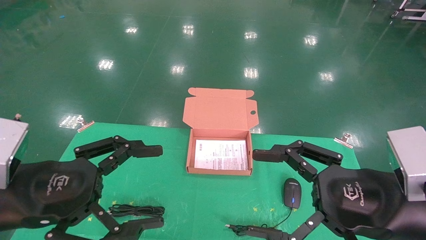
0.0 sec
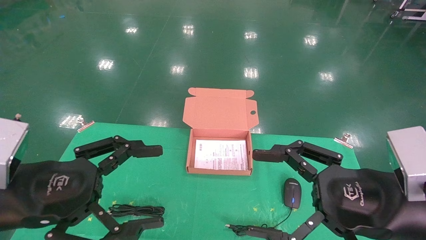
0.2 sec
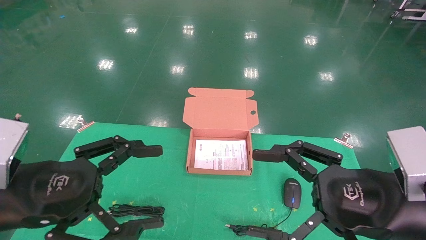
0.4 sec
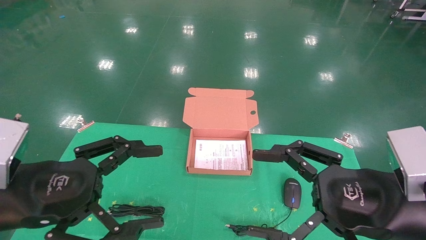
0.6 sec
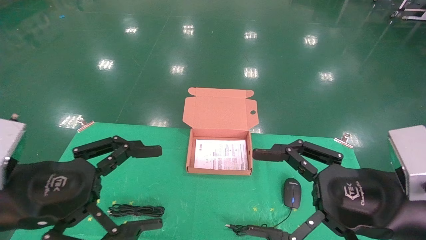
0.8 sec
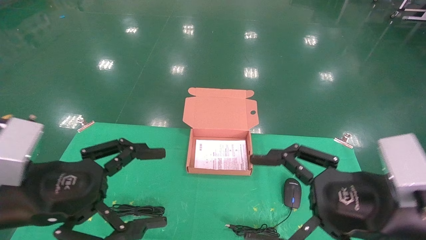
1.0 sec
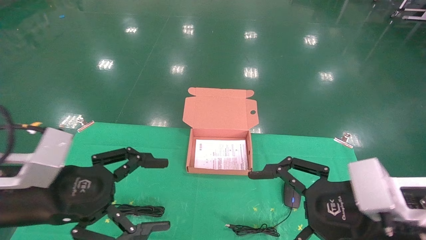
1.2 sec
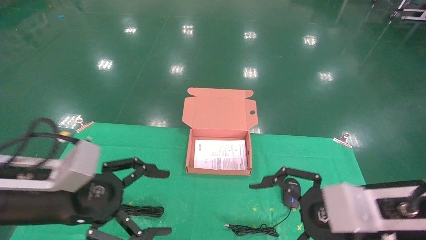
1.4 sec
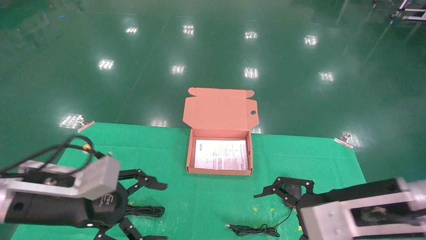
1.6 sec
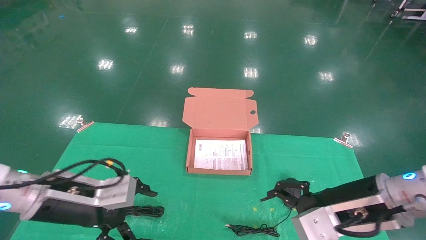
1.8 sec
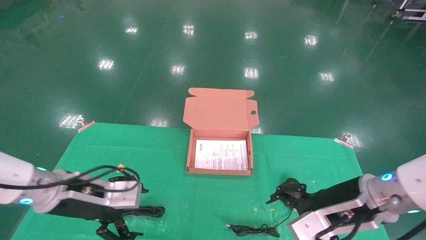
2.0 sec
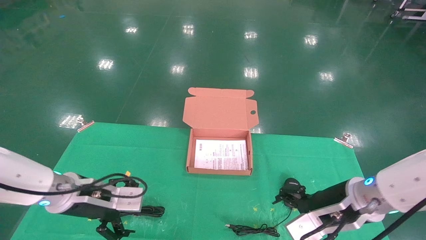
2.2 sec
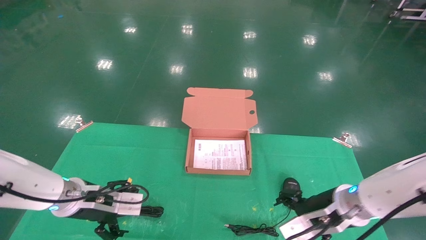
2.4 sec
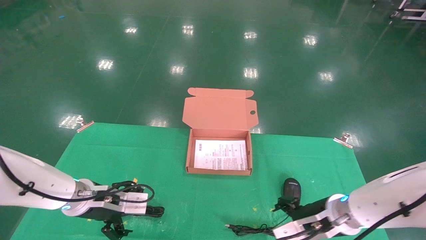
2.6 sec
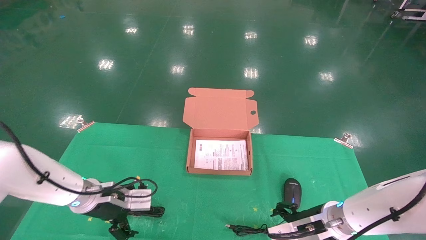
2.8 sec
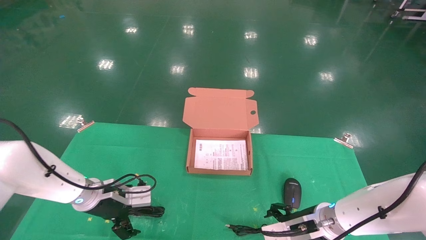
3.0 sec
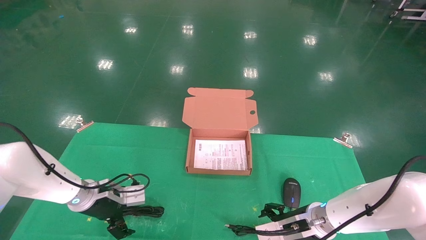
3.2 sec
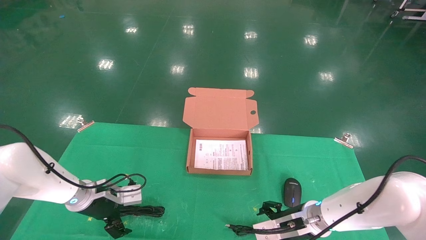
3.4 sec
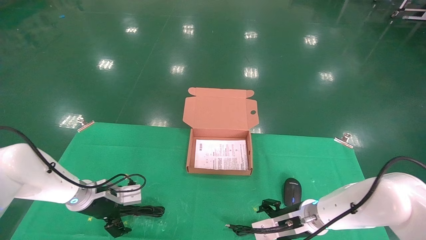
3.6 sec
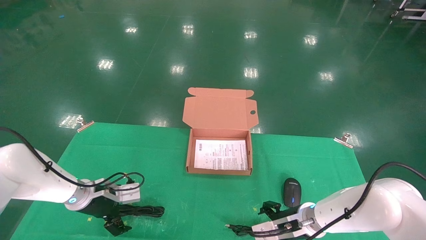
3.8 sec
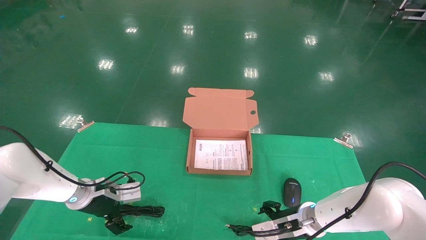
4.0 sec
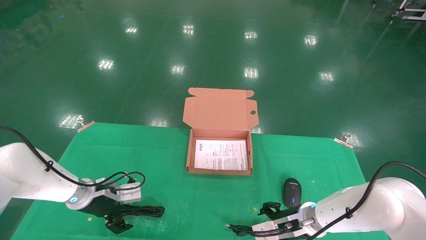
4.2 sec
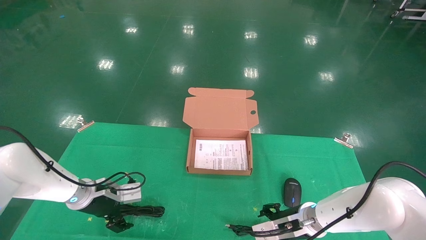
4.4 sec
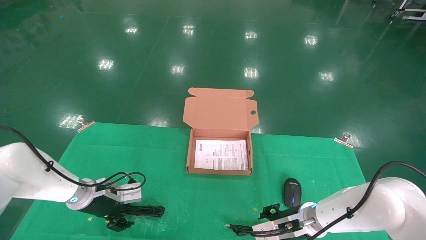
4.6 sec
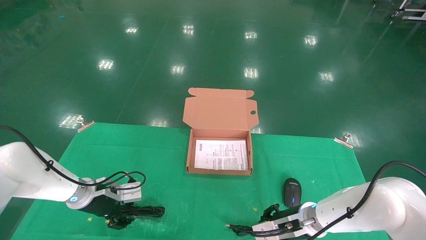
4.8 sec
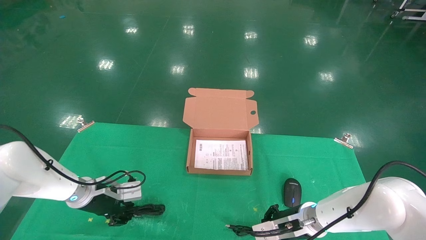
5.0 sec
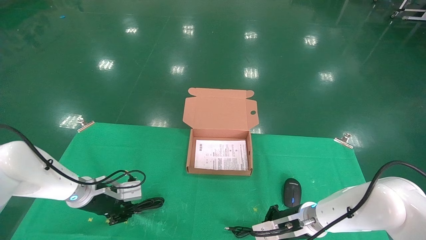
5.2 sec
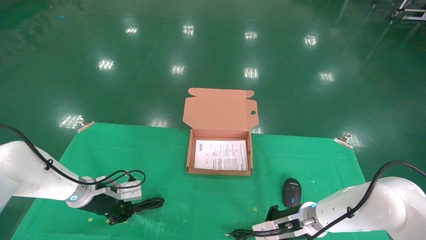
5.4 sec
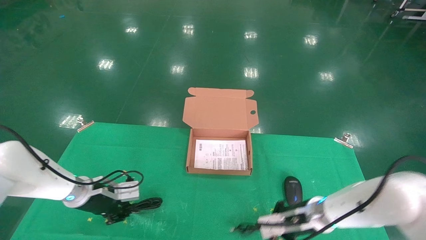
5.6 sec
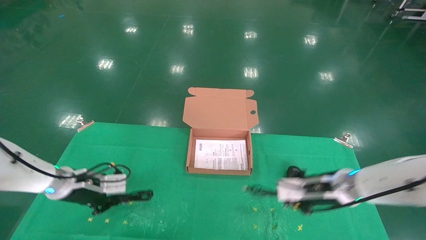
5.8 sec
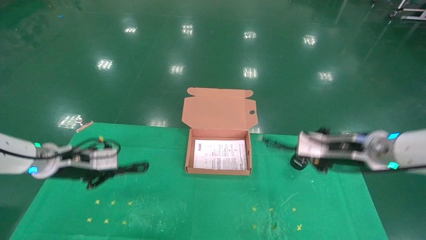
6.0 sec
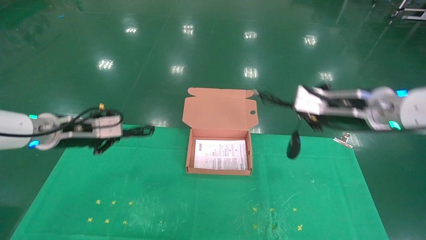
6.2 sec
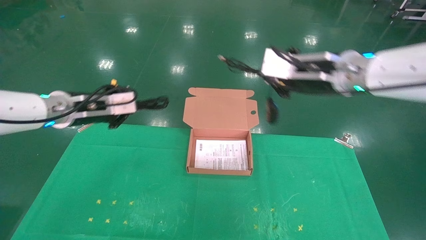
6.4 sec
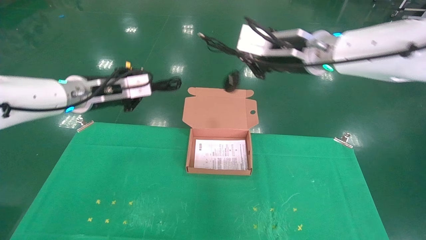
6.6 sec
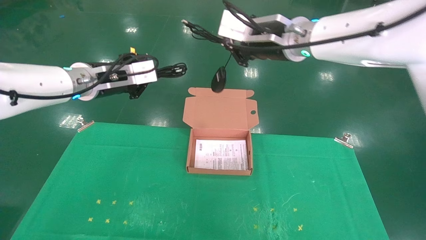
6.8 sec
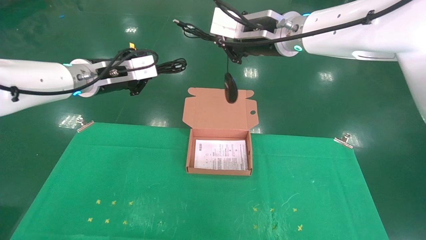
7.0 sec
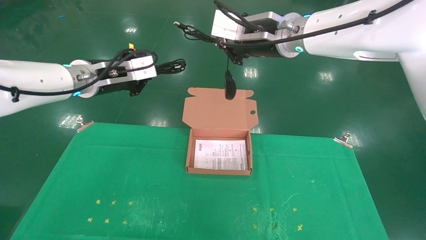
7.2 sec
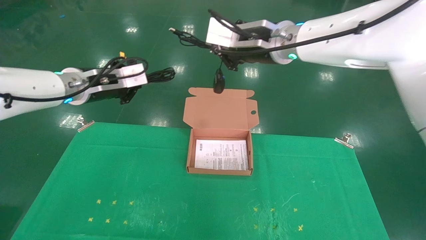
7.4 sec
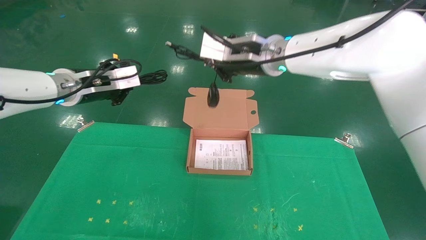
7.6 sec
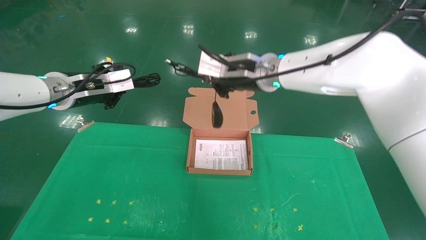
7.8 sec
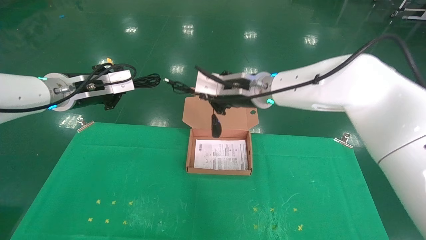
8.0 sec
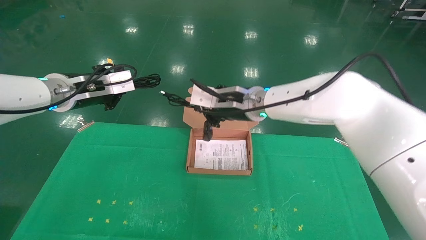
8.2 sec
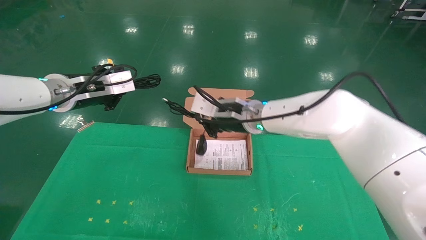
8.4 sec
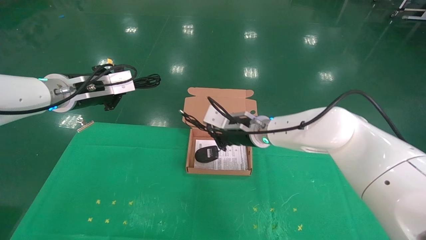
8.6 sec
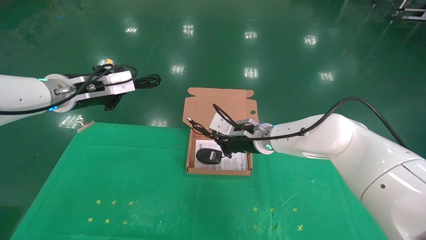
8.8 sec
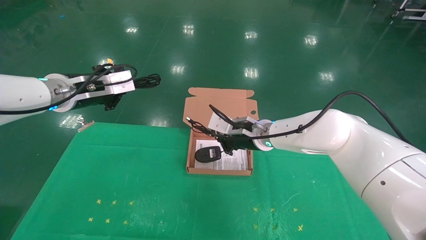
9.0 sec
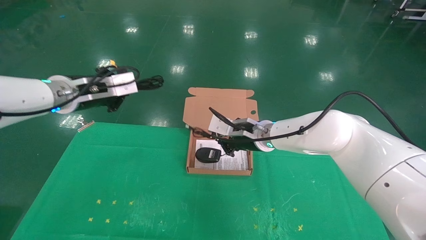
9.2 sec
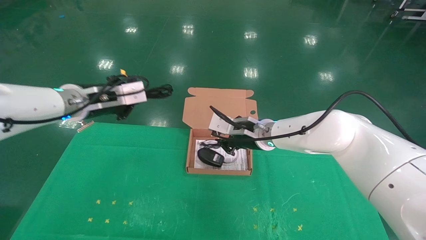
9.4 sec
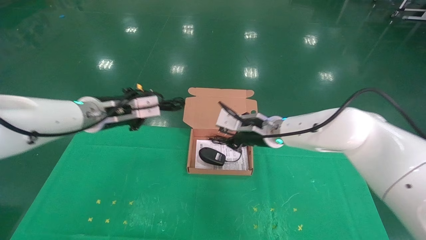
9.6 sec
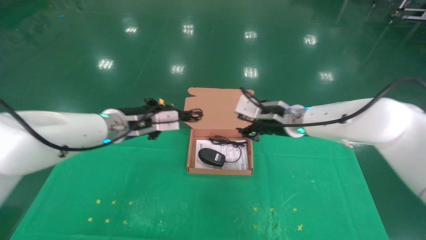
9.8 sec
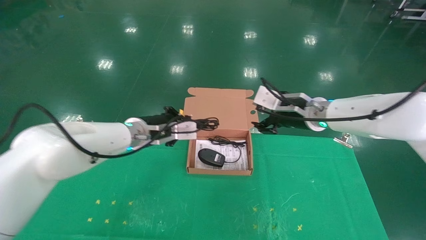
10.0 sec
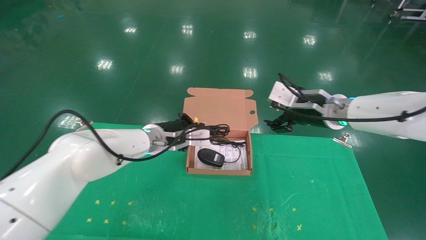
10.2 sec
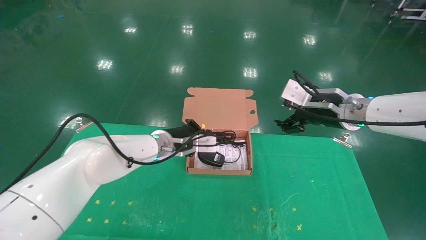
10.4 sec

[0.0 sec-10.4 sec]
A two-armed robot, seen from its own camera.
Task of the whole recording: grasp data cable left put into box grasp mouse right put into box.
Step, 0.8 sec to 5.4 sec: Grab and pick up both the mouse and power cord from the accessory packaging area at the same time.
0.0 sec to 1.4 sec: The left gripper shifts by roughly 5 cm.
1.4 sec to 3.0 sec: The left gripper goes some 20 cm forward and downward, while the right gripper shifts approximately 20 cm downward and forward.
3.0 sec to 4.4 sec: The grippers make only small movements.
4.4 sec to 6.0 sec: The right gripper is displaced upward by roughly 20 cm, and closes up, while the left gripper heads upward, covering some 10 cm, and closes its fingers.
6.0 sec to 7.4 sec: The left gripper is displaced upward and to the right by approximately 15 cm; the right gripper is displaced upward and to the left by about 25 cm.
7.4 sec to 9.0 sec: The right gripper travels downward by some 20 cm.
9.0 sec to 10.4 sec: The left gripper shifts about 25 cm to the right, downward and forward. The right gripper shifts some 15 cm to the right and upward, and opens.

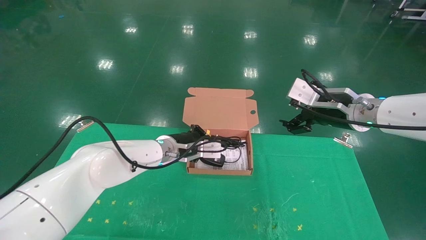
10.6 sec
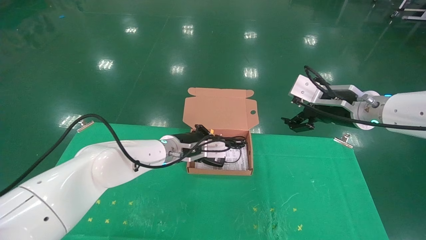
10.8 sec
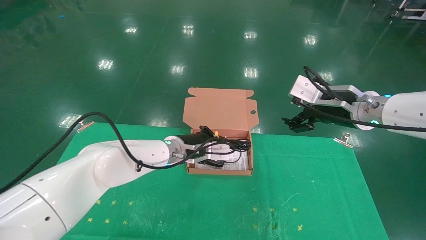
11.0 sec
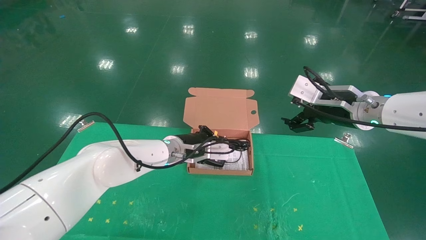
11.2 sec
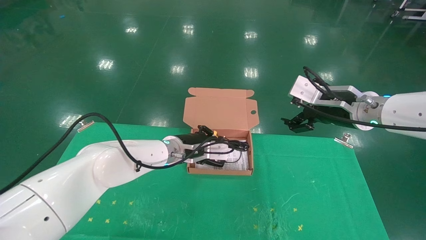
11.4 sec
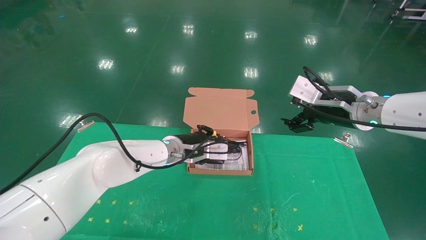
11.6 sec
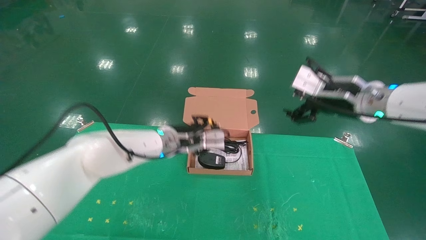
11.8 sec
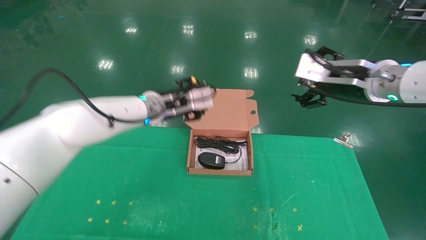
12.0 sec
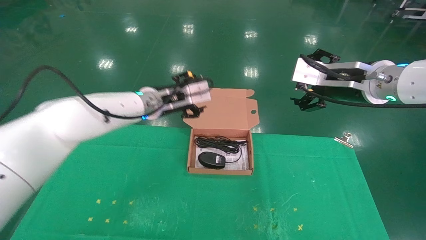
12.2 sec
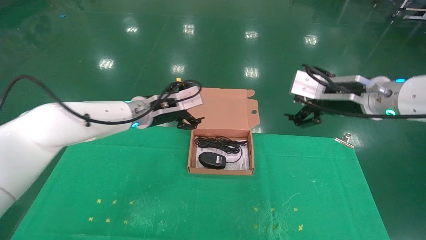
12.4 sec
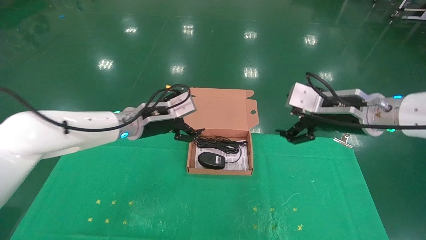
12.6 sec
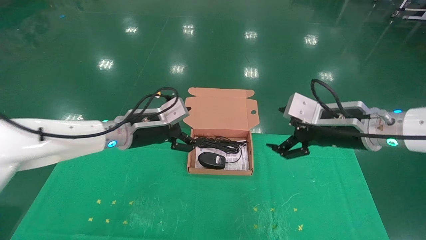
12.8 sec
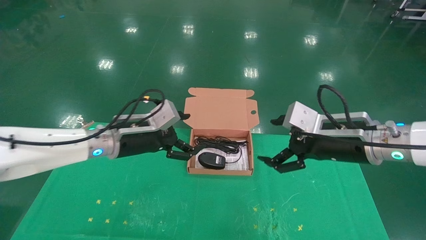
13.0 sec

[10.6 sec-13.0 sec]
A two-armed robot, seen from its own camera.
Task of the whole recording: grasp data cable left put into box grasp mouse right put into box.
10.6 sec to 11.8 sec: There are only small adjustments of the grippers.
11.8 sec to 13.0 sec: The left gripper heads to the left and backward, covering some 10 cm, and opens, while the right gripper is displaced downward and backward by some 10 cm.

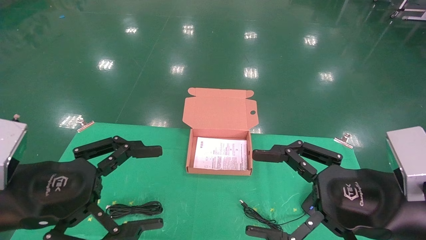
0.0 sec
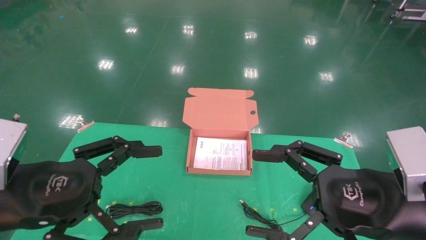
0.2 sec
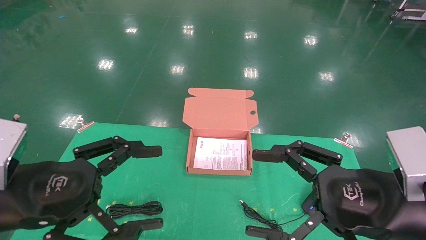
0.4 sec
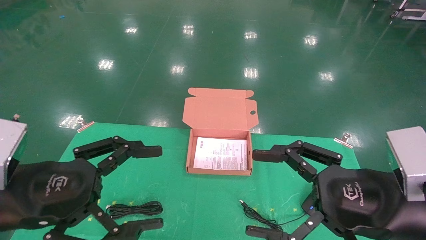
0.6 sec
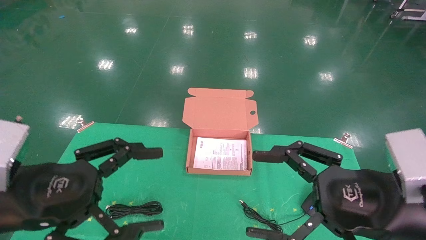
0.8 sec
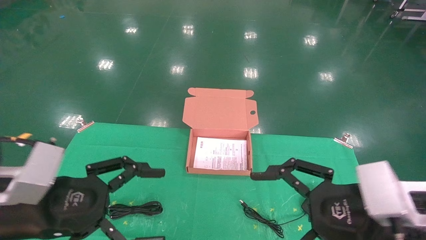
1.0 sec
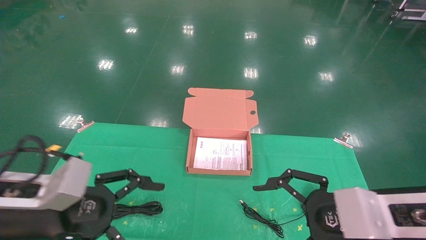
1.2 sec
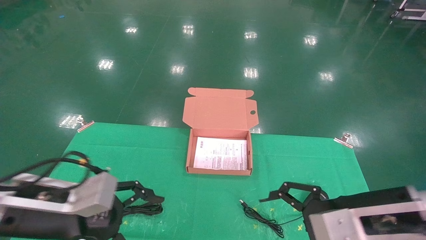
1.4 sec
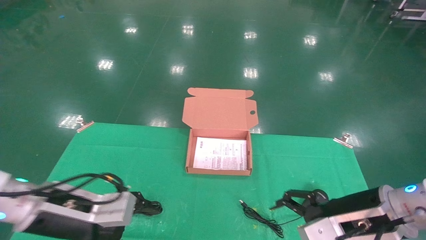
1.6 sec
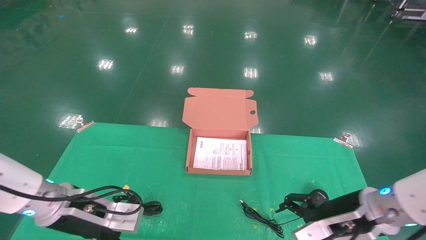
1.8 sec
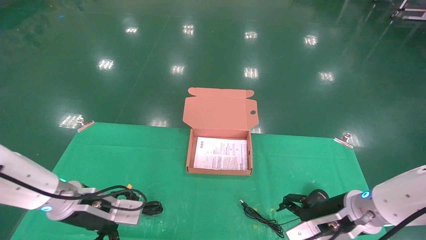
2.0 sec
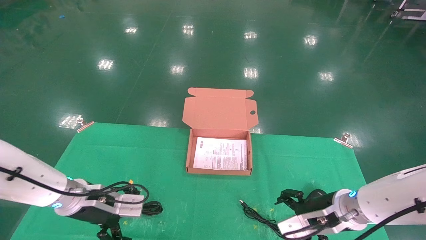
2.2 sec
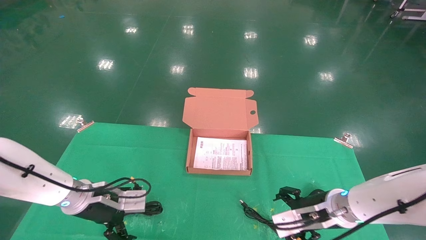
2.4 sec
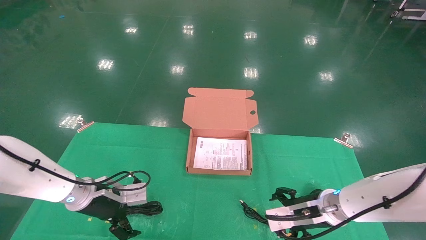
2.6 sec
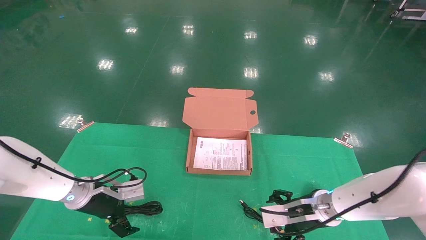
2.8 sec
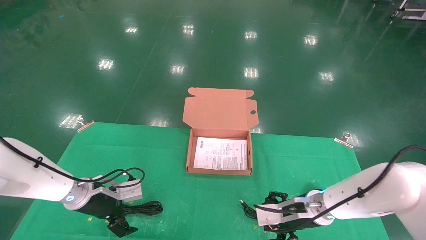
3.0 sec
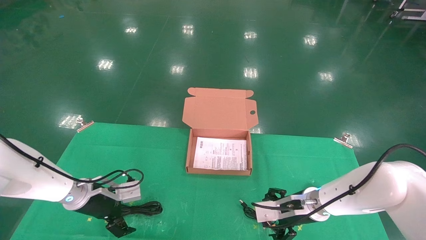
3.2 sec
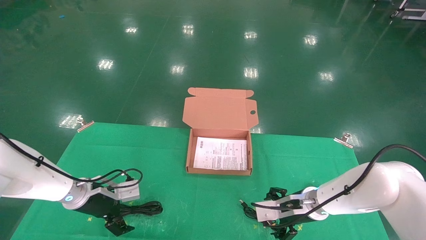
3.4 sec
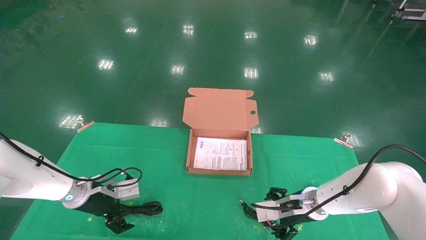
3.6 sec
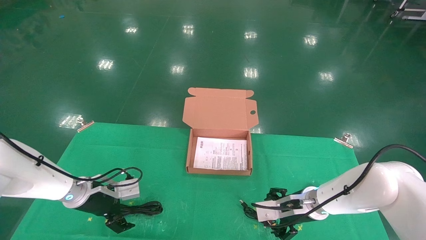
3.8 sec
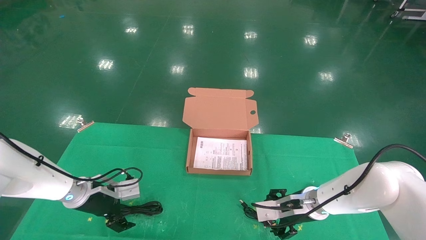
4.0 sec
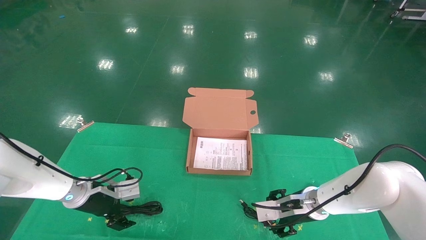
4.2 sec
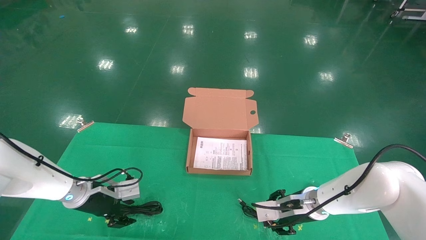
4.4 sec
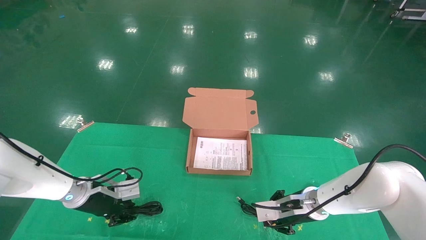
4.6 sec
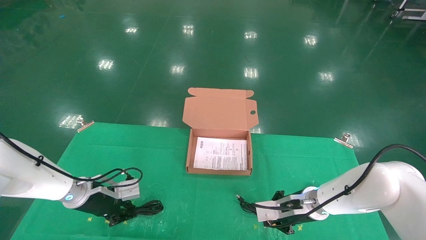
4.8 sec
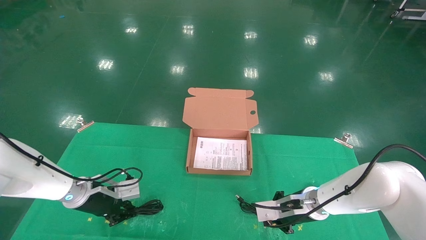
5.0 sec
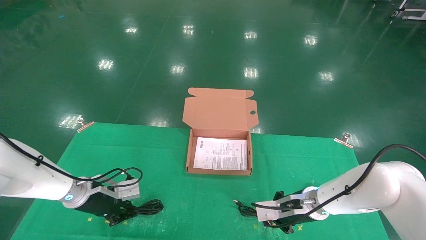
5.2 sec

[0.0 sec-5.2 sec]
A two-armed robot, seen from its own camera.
Task of the whole recording: grasp data cable left put into box grasp mouse right put into box.
Step, 1.0 sec to 5.0 sec: Grab and pick up both the mouse and power cord from the accessory packaging area at the same time.
0.0 sec to 1.8 sec: The two grippers go roughly 15 cm forward and downward.
1.8 sec to 3.4 sec: Both grippers travel together forward and downward, roughly 15 cm.
3.4 sec to 5.2 sec: The left gripper closes. The right gripper closes.
